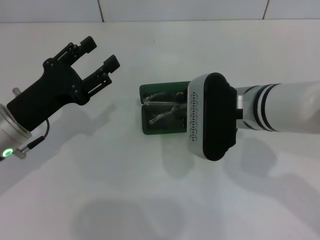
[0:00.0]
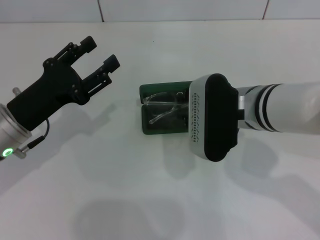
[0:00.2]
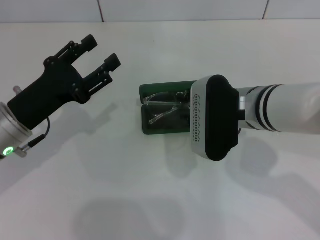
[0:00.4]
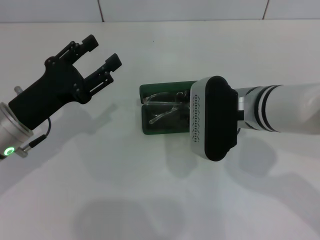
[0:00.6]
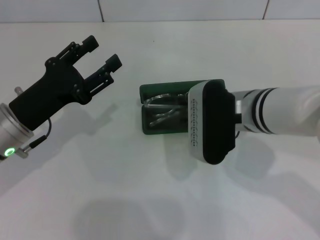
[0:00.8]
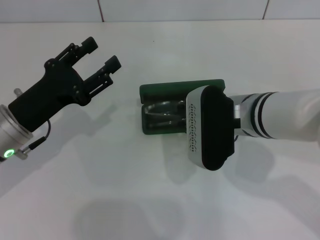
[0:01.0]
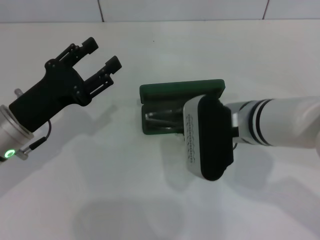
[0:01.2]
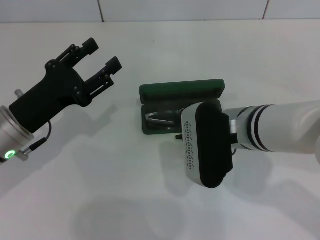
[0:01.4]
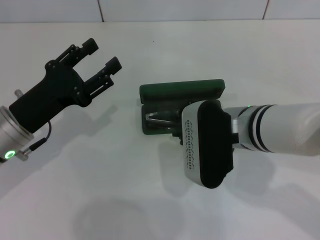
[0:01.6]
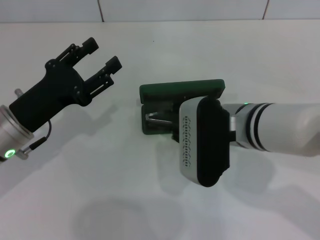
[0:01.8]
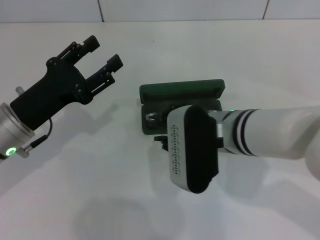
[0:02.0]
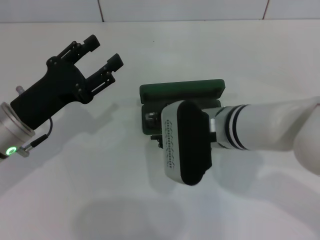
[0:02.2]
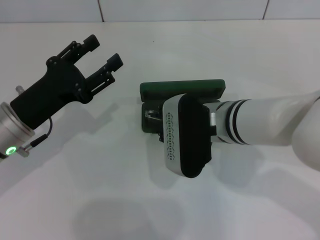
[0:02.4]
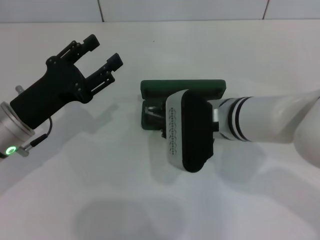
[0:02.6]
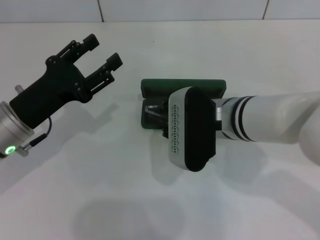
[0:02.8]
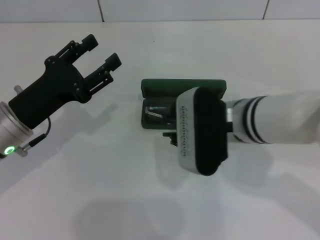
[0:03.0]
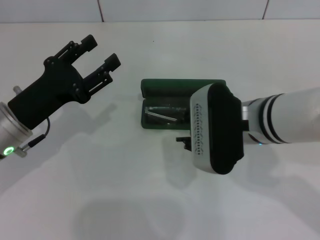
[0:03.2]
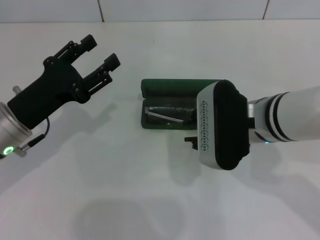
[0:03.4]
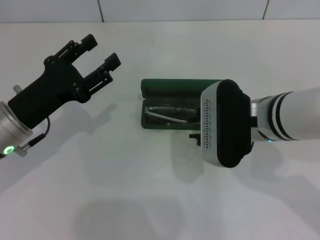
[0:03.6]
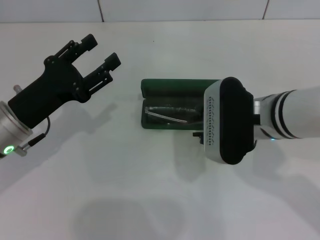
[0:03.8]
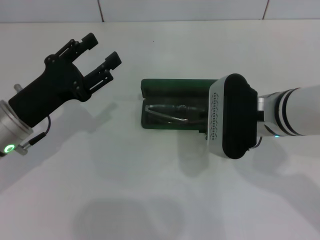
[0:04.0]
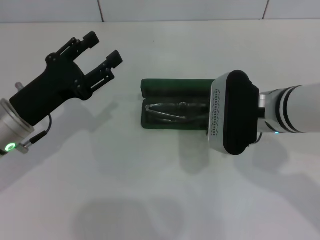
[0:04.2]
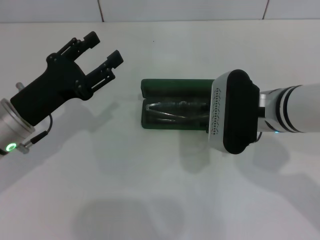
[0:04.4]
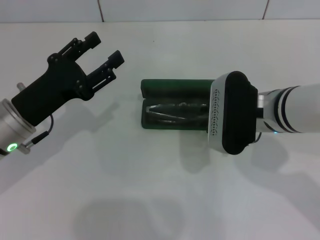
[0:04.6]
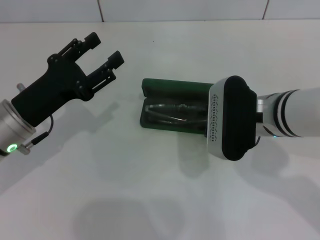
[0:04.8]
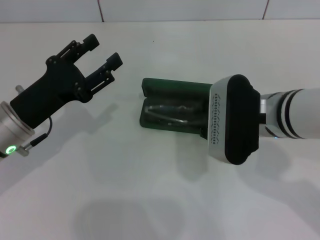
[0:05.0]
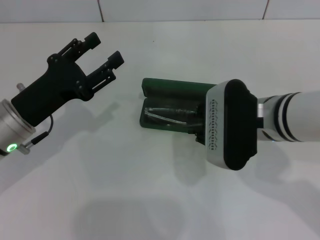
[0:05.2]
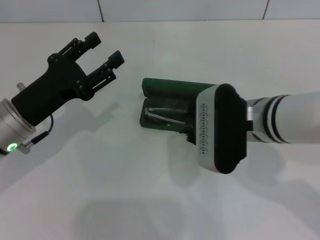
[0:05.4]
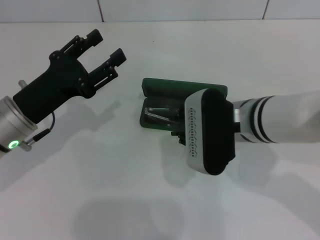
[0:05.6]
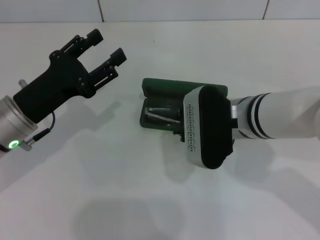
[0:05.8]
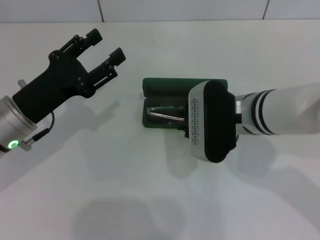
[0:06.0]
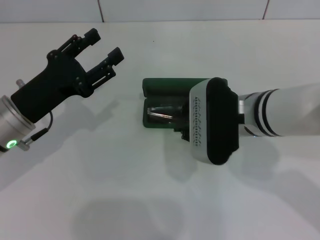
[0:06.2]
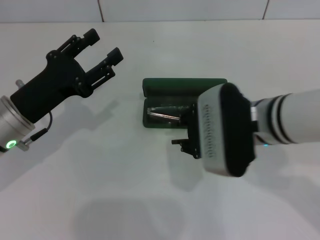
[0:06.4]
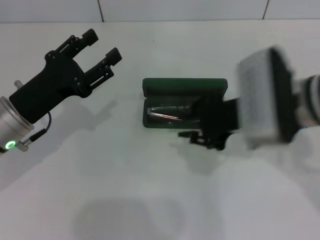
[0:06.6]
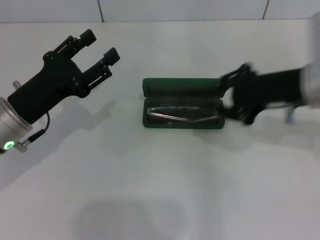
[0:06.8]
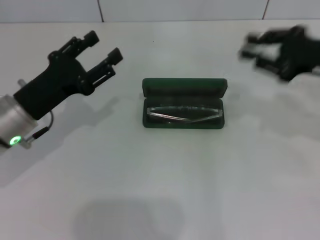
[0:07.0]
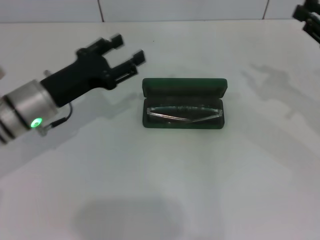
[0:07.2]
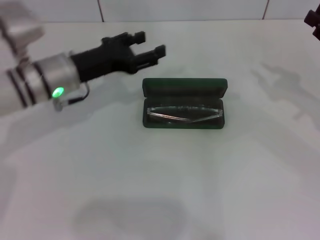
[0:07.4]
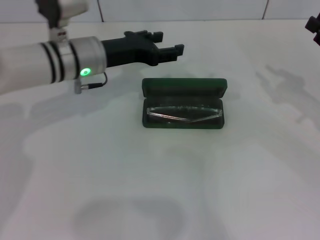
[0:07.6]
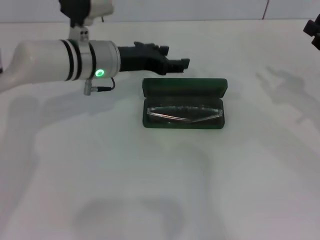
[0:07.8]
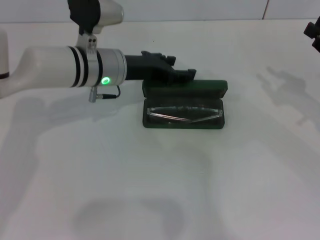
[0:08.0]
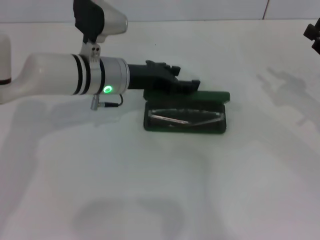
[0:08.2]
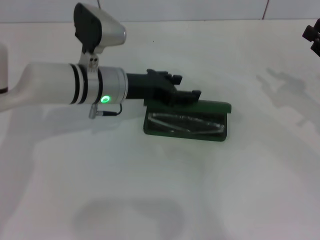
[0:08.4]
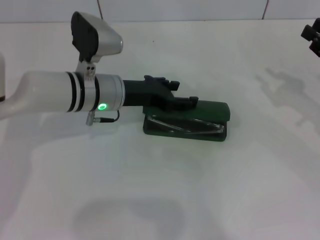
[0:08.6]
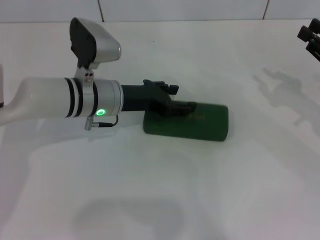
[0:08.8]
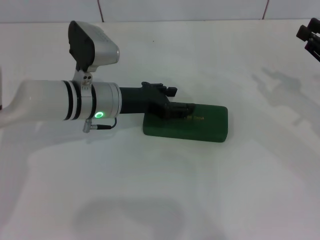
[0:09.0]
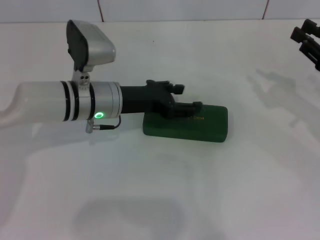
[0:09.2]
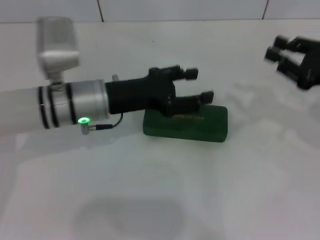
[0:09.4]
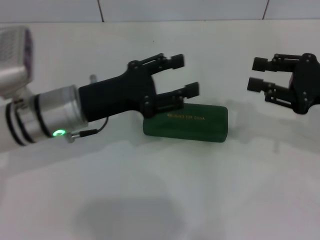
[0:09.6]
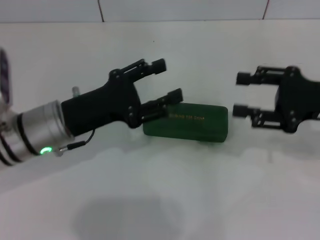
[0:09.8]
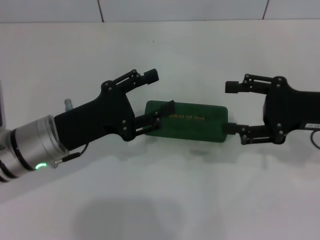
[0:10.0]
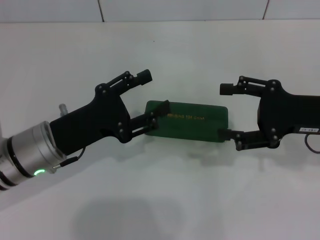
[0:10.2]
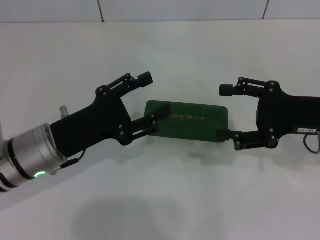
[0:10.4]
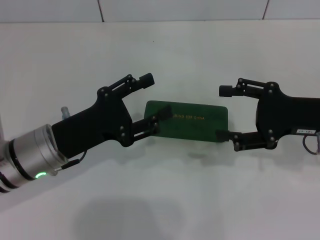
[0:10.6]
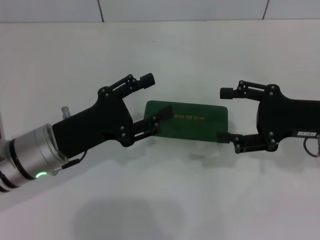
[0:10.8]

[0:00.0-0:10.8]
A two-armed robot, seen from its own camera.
Step, 0:00.0 to 0:05.4: Put the glasses into the case with your right hand.
Step, 0:05.6 to 0:08.8: Close the glasses case with your left hand.
0:00.0 to 0:06.2: There are only small adjustments of the grippers.
0:06.2 to 0:07.8: The left gripper heads forward and to the right, covering approximately 15 cm. Meanwhile the right gripper travels to the right by about 25 cm.
0:07.8 to 0:09.2: The left gripper ends up roughly 5 cm from where it was.
0:09.2 to 0:10.8: The left gripper travels backward and to the left by some 10 cm; the right gripper goes approximately 5 cm to the left, and opens up.
